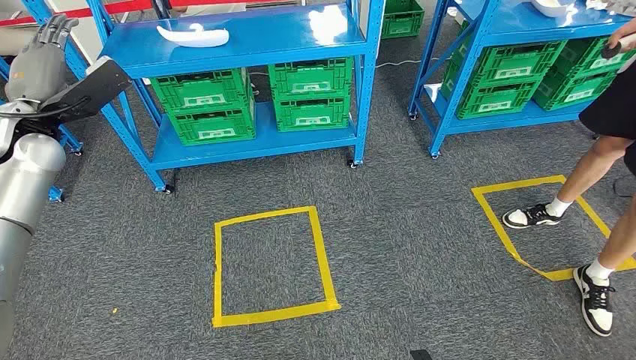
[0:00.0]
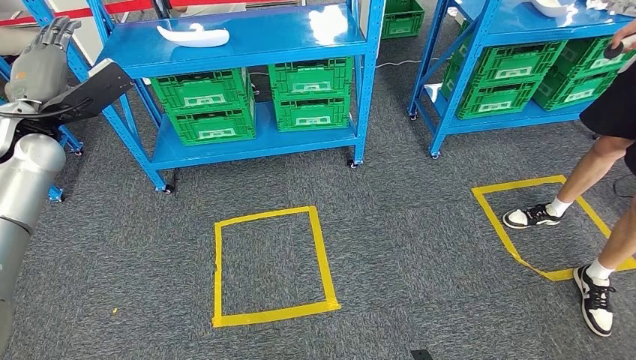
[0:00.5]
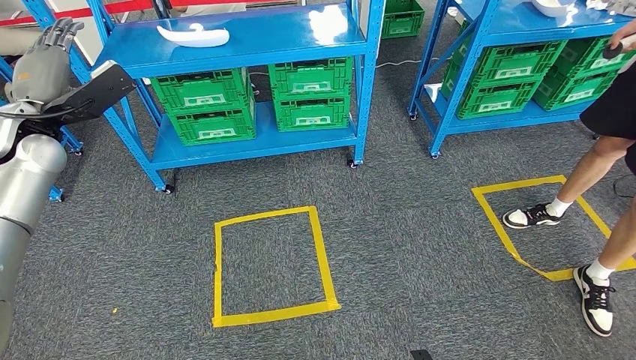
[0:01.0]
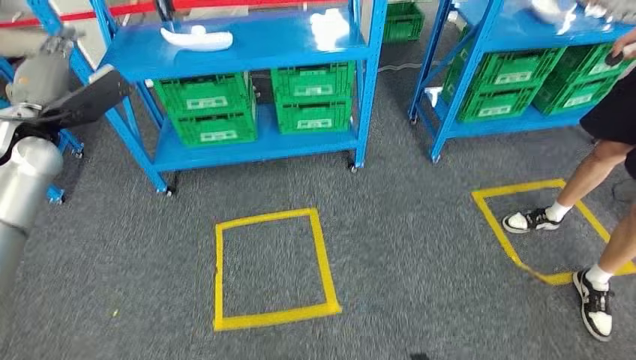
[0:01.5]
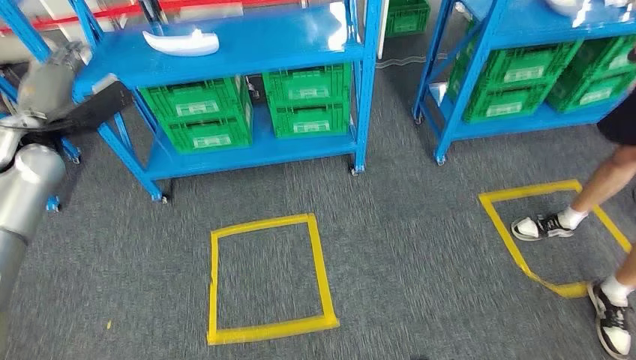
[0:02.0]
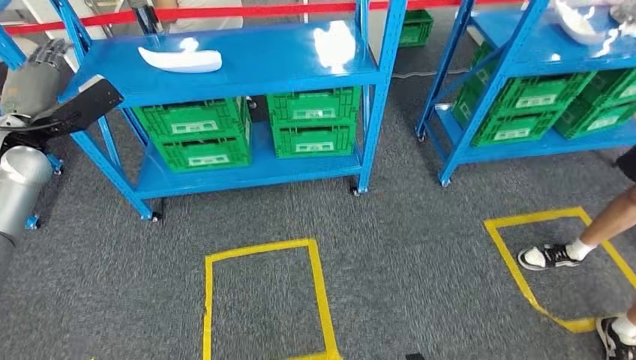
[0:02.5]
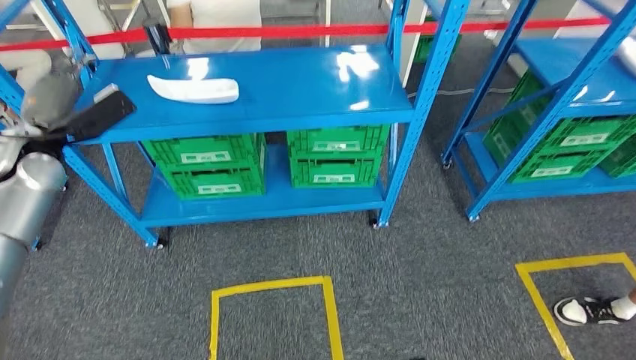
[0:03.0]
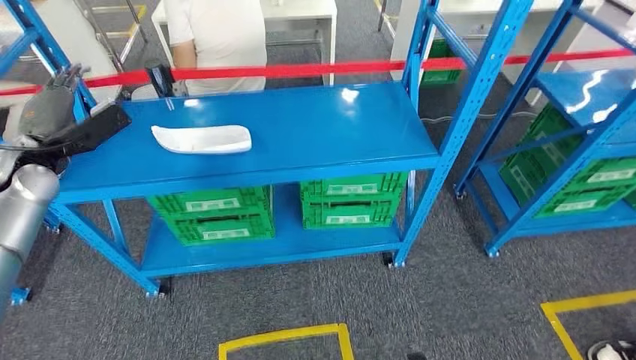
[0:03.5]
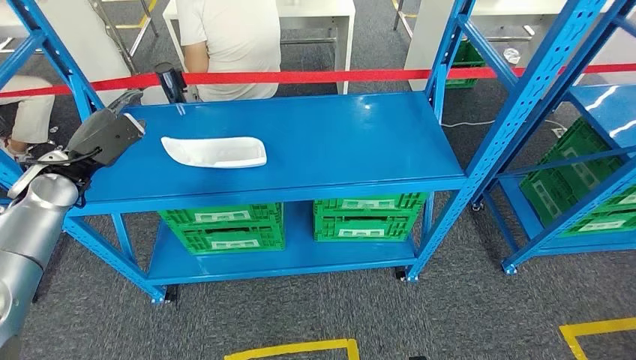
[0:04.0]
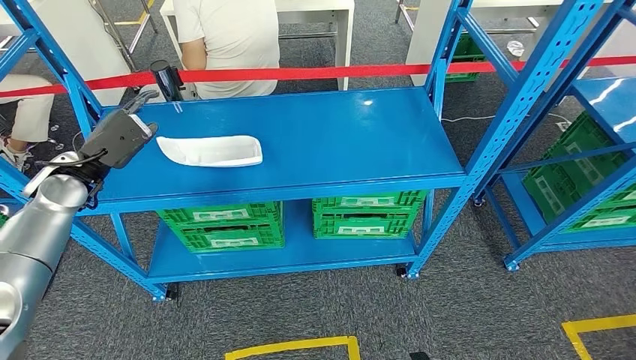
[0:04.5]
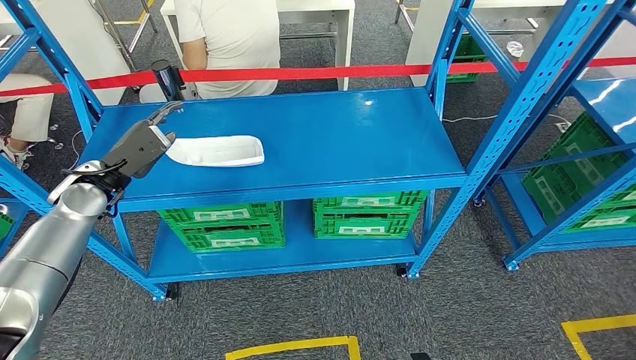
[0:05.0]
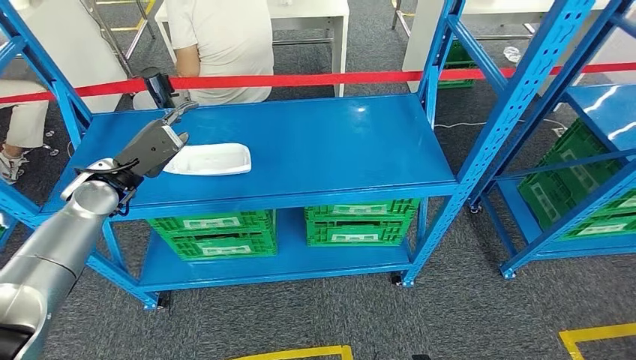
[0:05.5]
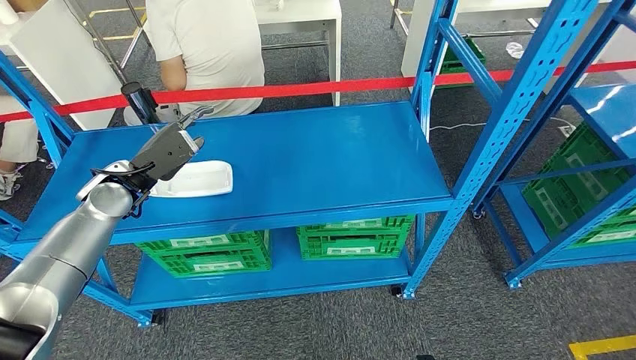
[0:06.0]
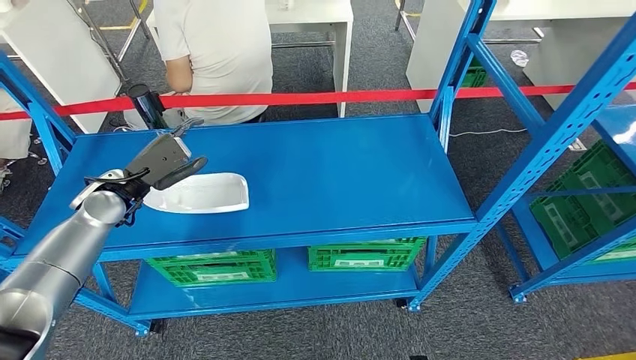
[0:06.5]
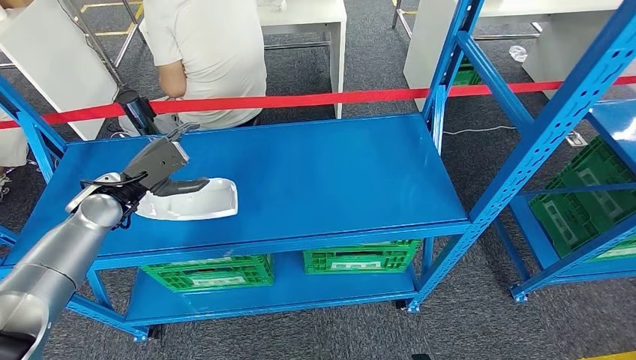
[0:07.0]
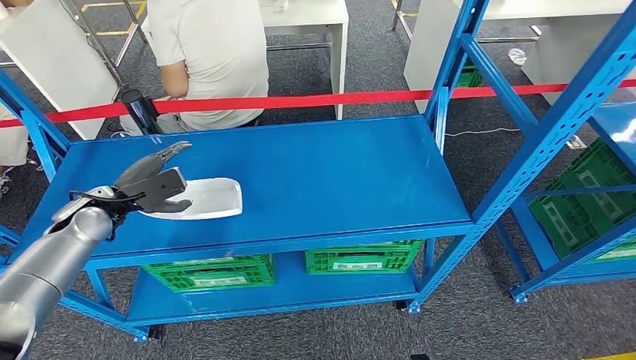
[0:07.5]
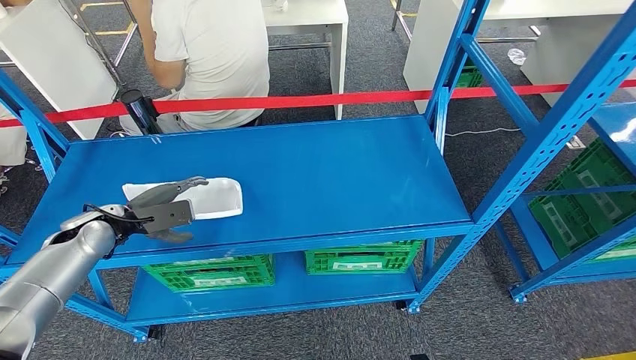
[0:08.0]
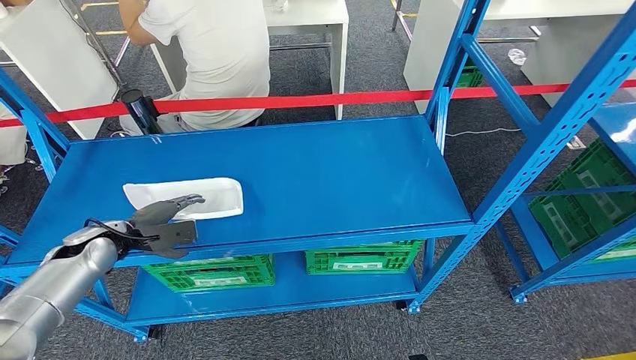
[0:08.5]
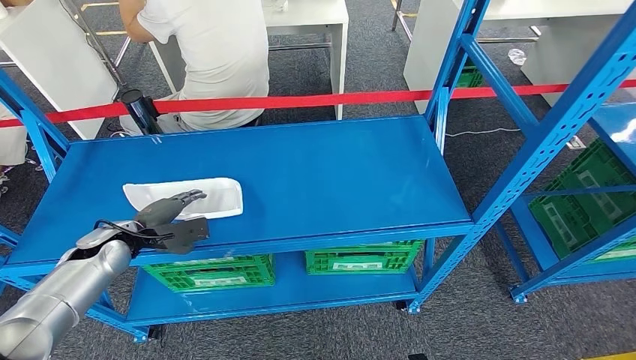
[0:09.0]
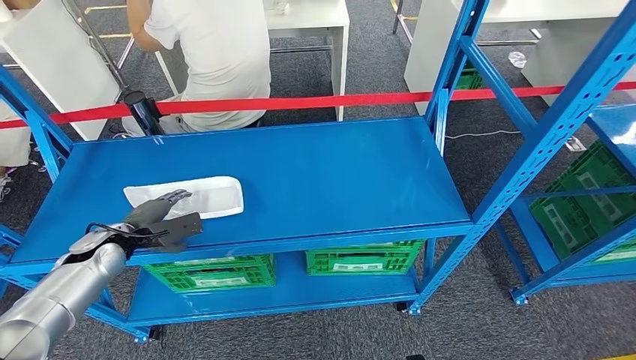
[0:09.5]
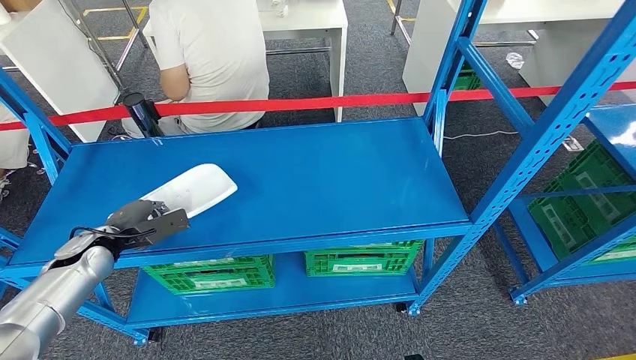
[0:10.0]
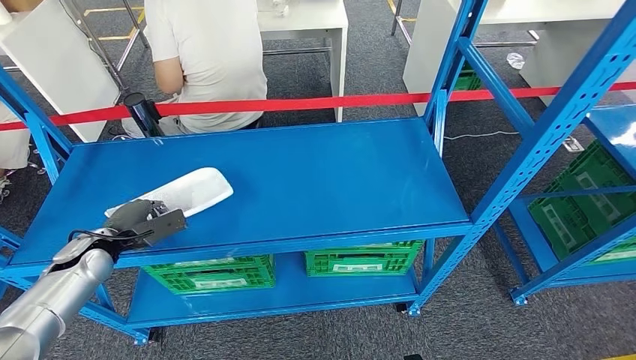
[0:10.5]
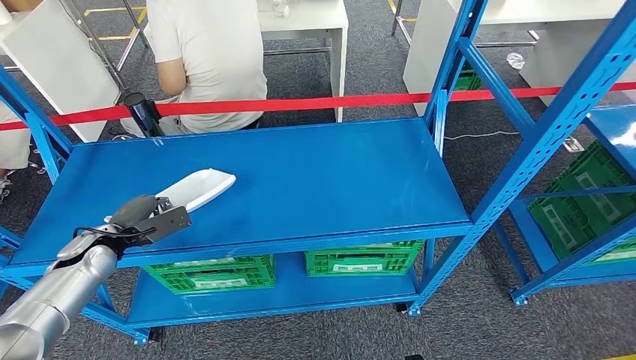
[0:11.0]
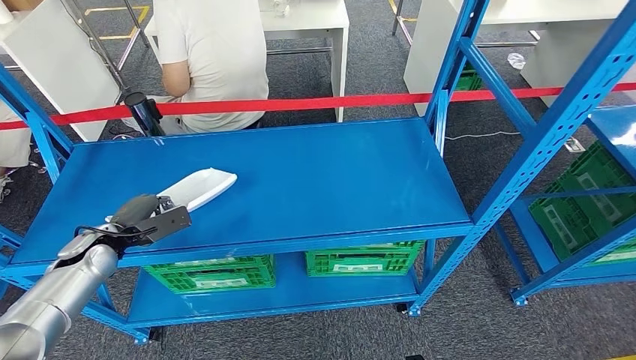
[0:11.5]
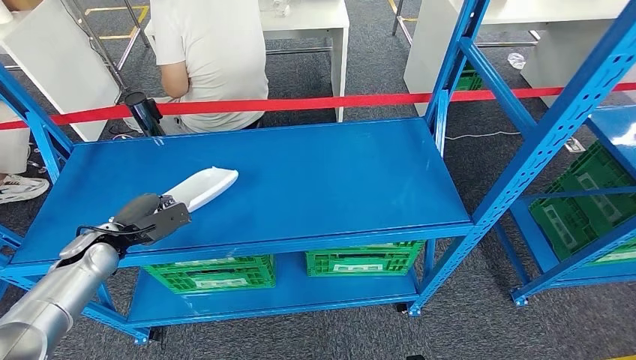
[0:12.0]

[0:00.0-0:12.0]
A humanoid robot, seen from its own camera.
0:08.0 to 0:10.0: The left hand moves about 5 cm.
0:10.0 to 0:12.0: The hands move only a little.

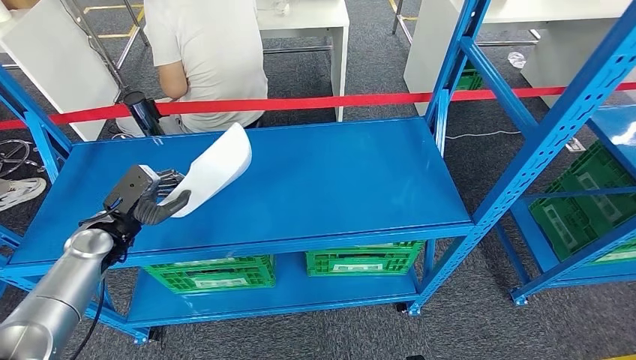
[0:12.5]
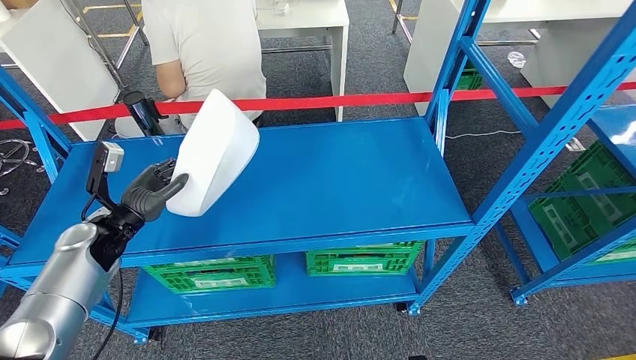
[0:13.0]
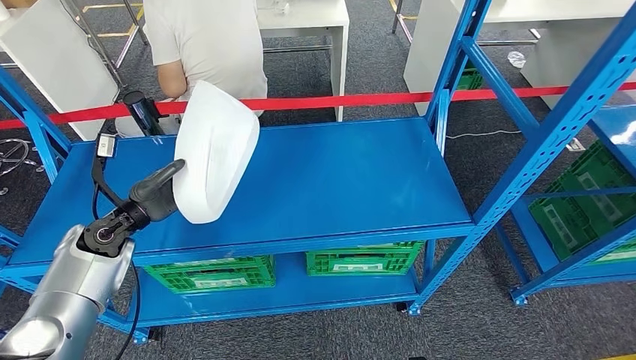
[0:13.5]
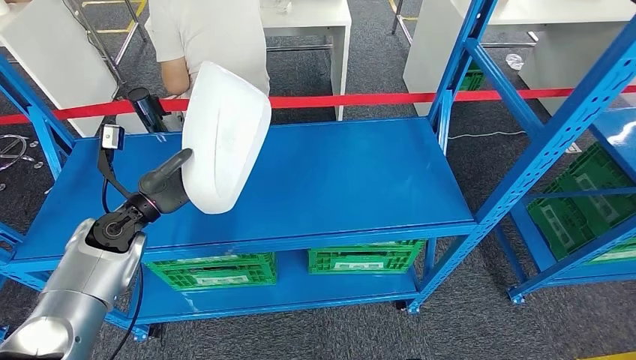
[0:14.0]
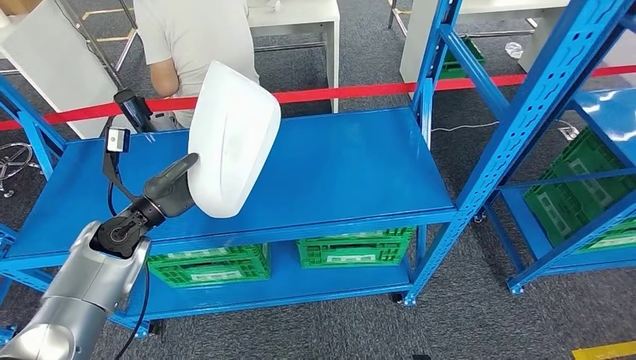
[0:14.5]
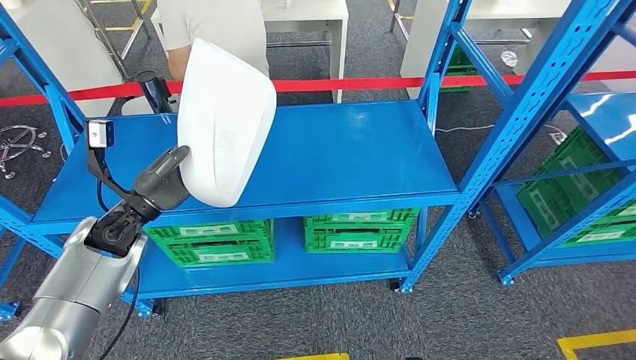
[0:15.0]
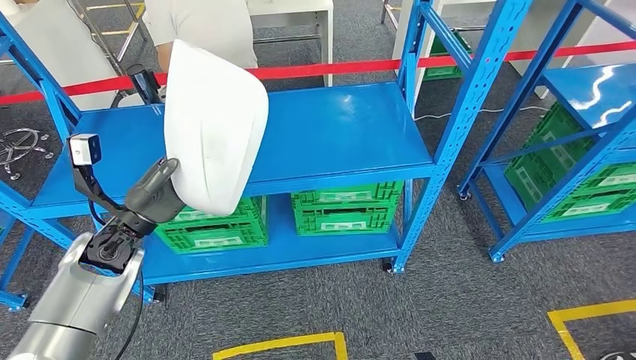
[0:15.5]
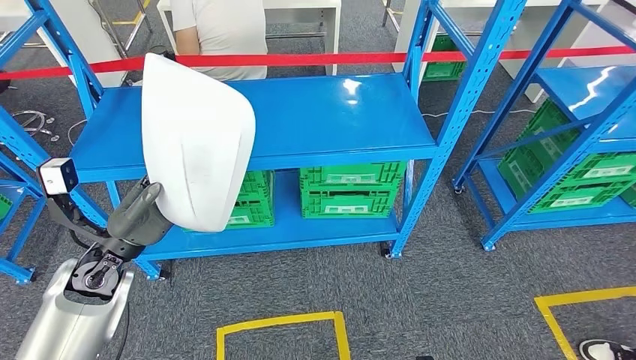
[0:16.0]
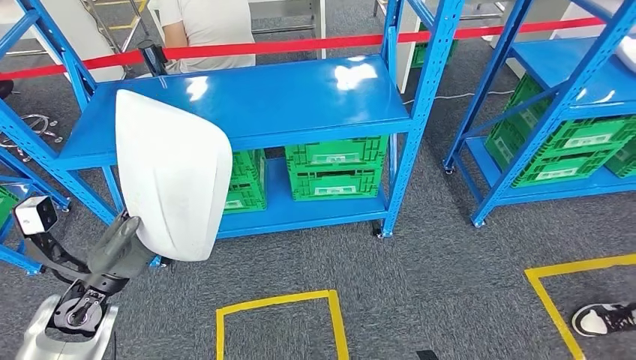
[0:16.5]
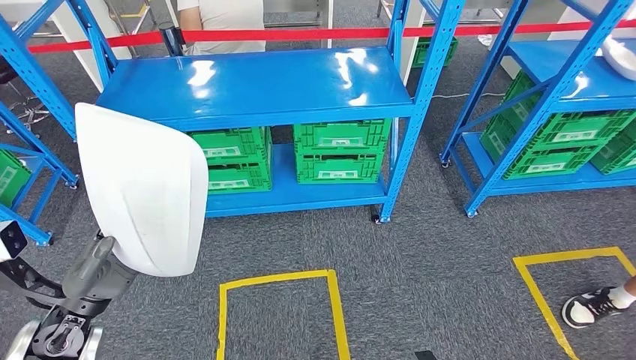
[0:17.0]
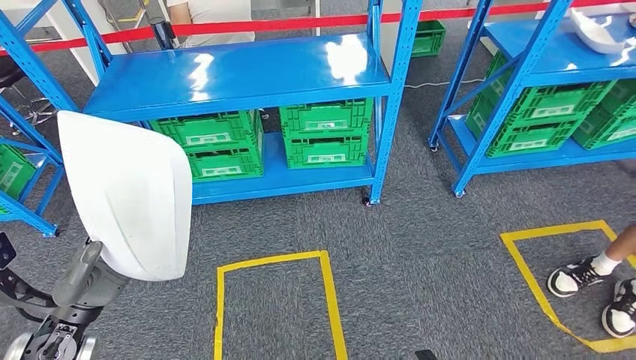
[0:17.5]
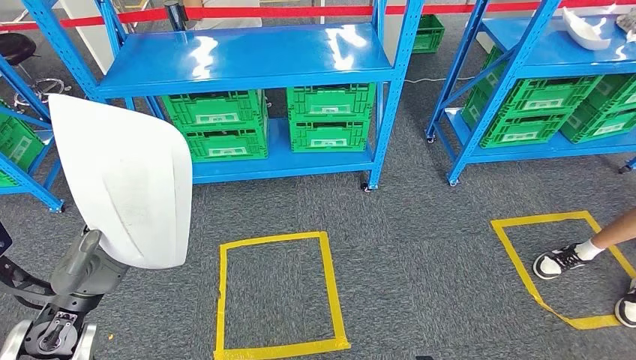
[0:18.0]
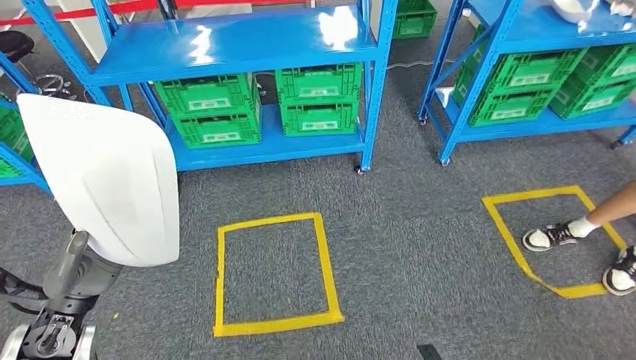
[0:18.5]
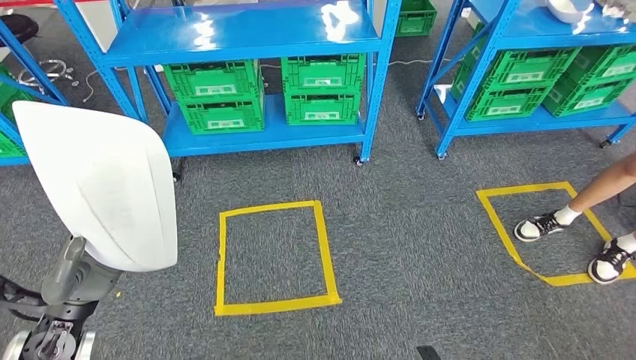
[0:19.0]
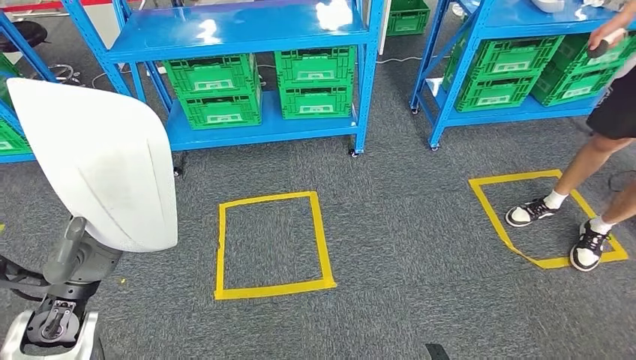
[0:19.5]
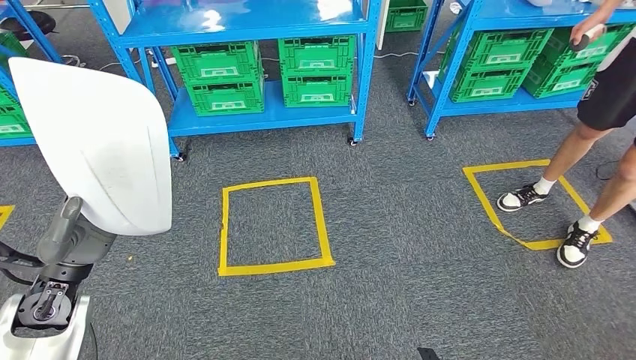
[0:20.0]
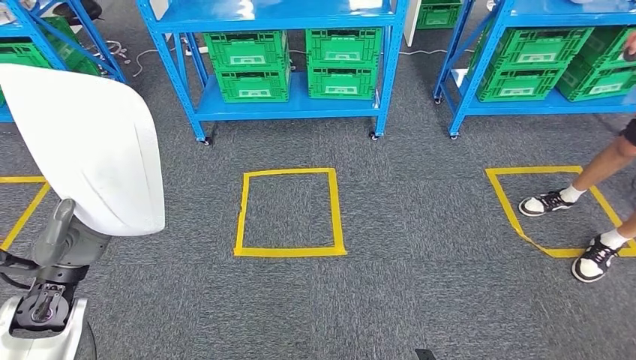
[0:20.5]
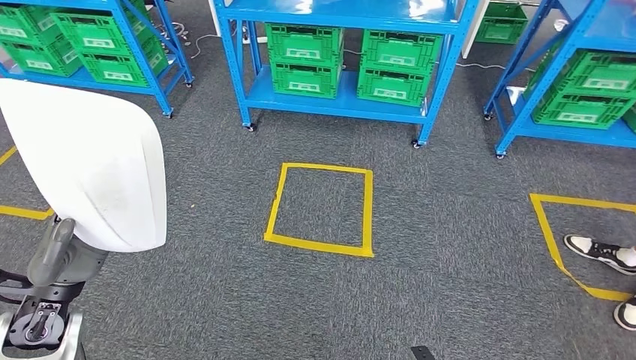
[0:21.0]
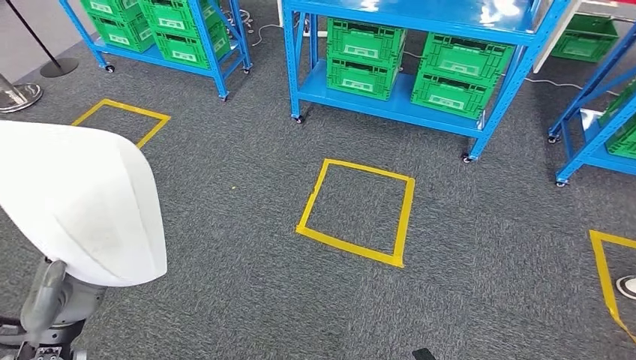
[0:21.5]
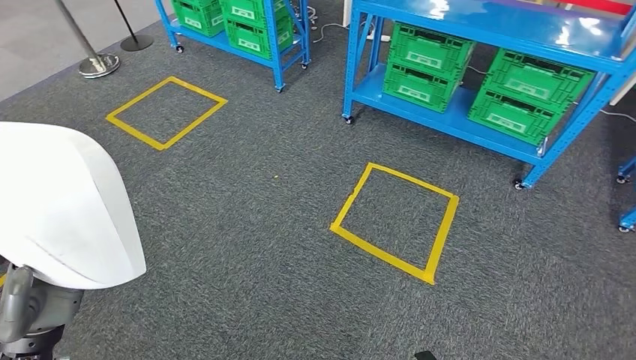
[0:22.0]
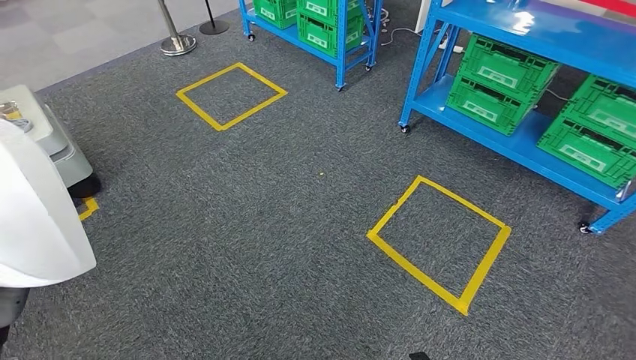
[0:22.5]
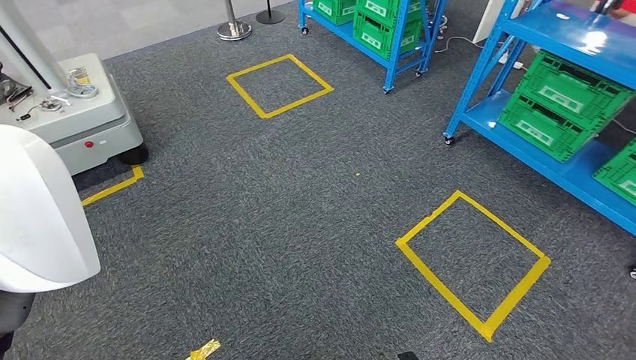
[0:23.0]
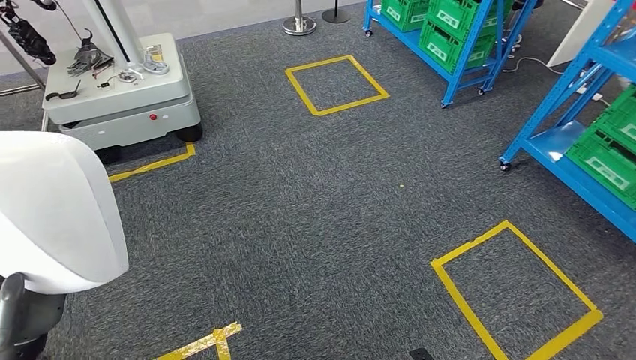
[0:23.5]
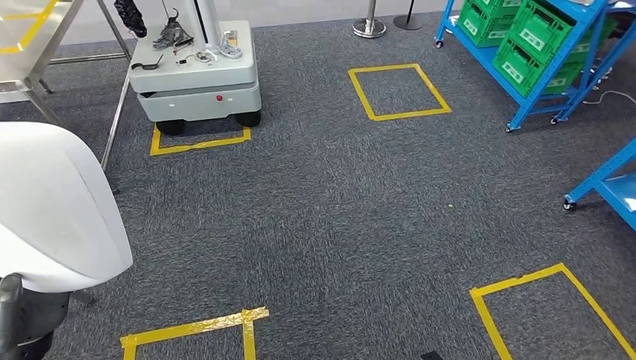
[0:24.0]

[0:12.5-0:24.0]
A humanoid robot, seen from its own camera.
Step, 0:12.5 to 0:14.5: Pick up the small parts from the shelf.
